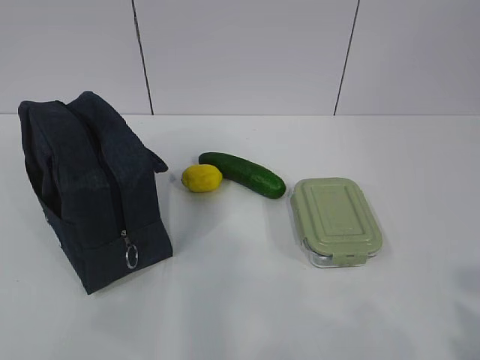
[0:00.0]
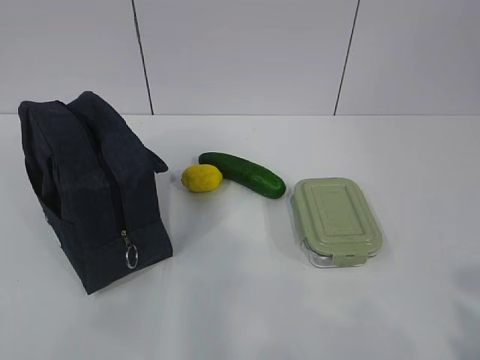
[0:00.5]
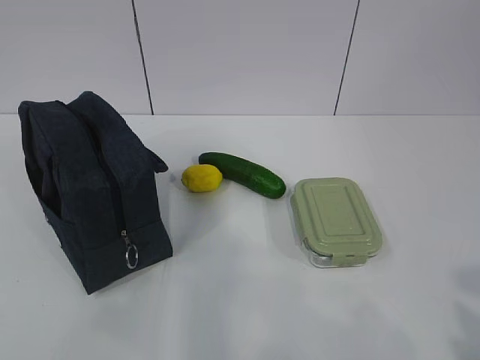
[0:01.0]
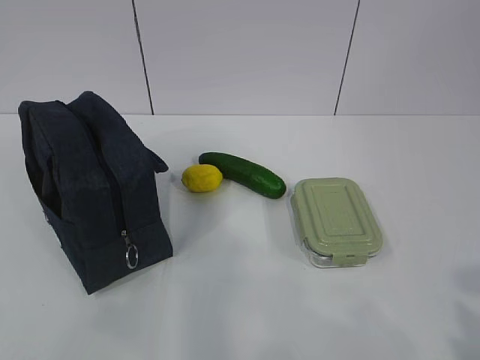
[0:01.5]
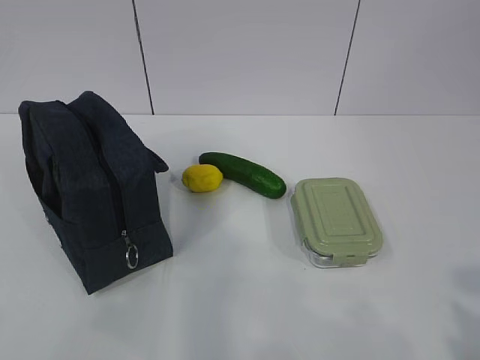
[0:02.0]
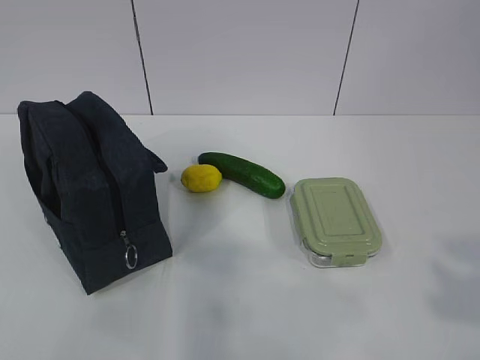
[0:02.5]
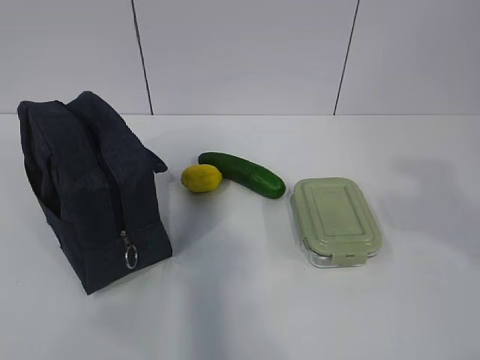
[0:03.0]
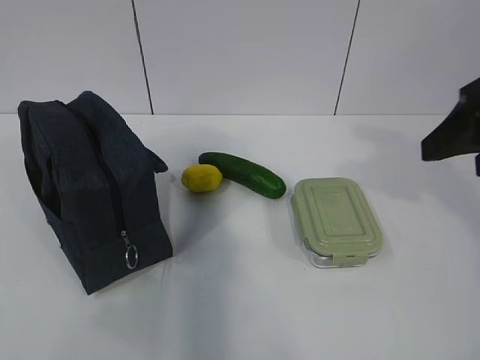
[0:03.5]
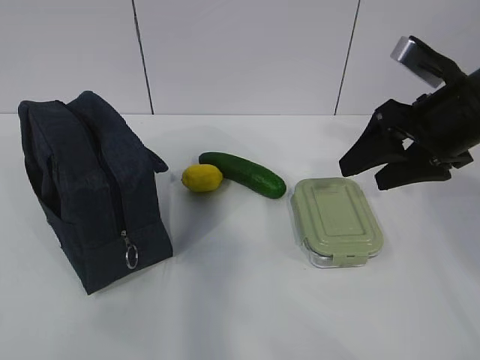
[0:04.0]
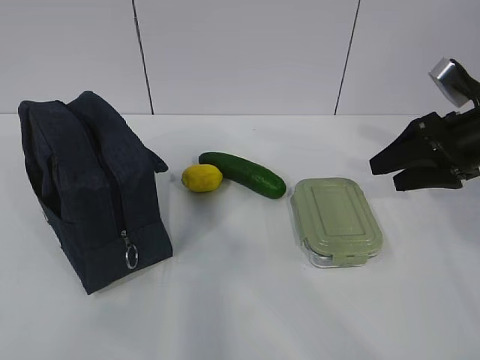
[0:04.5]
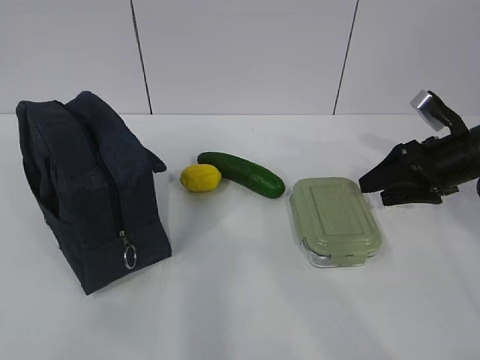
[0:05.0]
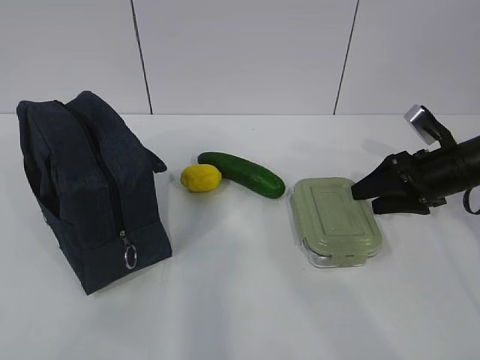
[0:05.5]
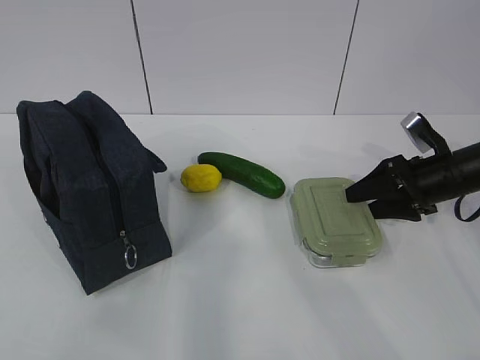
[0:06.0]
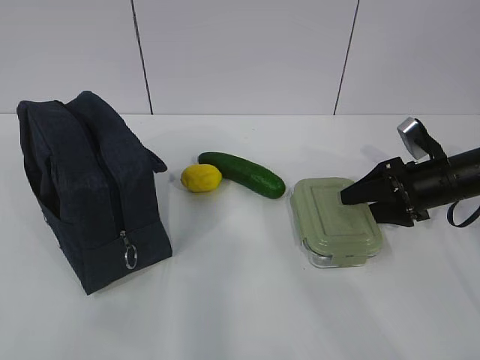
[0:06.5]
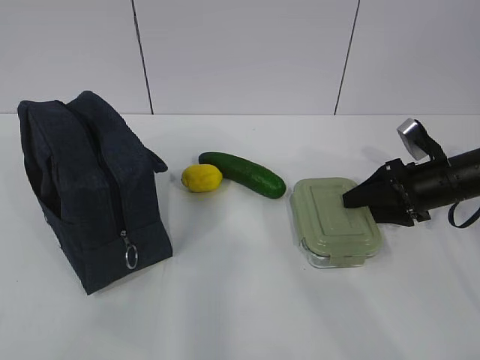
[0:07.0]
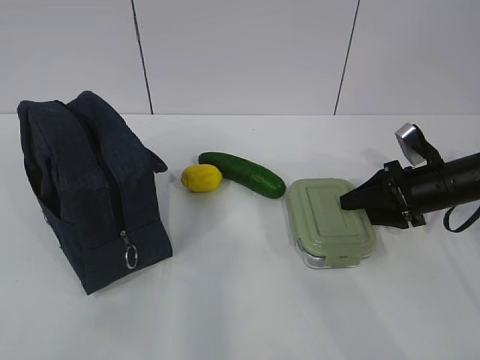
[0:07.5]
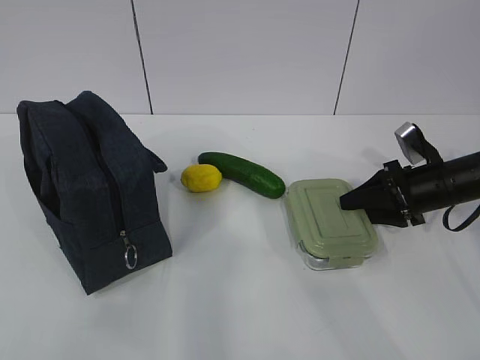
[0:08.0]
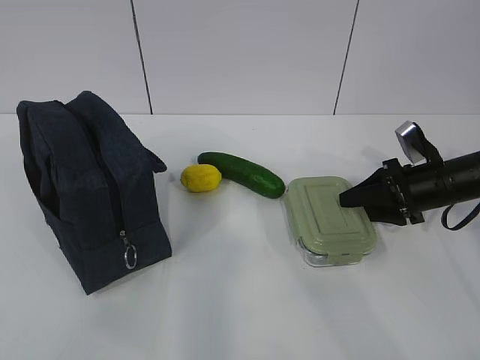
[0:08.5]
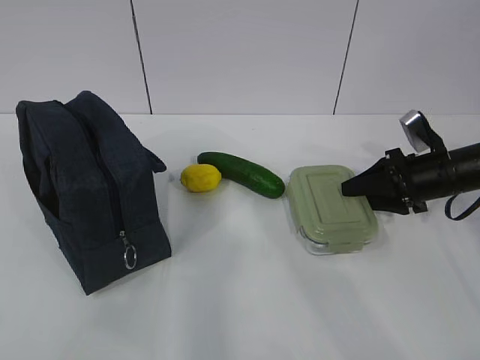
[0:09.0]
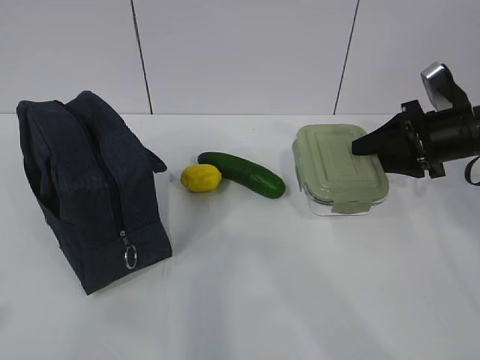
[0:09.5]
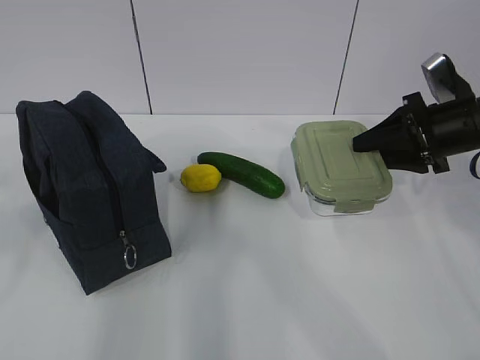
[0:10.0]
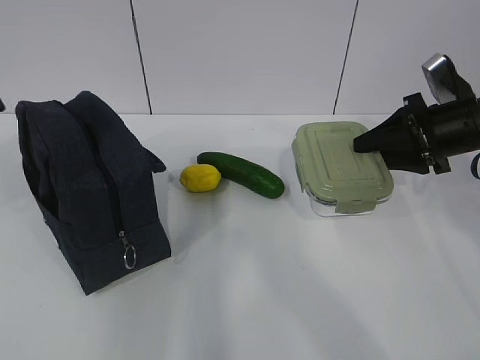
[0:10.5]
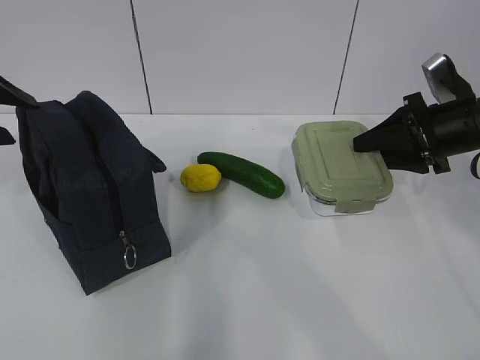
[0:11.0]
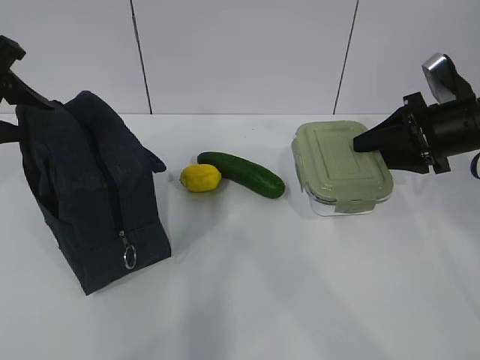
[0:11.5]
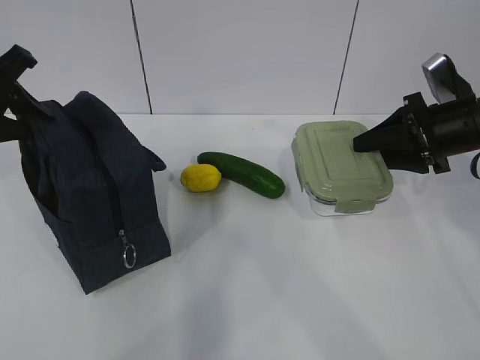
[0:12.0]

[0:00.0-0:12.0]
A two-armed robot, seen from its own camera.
Step, 0:00.0 to 0:07.0: Grab the lunch box with your right hand.
0:02.0 to 0:04.0: The right gripper shifts approximately 35 cm forward.
0:04.0 to 0:06.0: The right gripper shifts roughly 20 cm downward, to the right and forward.
0:06.0 to 0:08.0: The right gripper closes.
0:08.0 to 0:10.0: The right gripper goes approximately 10 cm upward, while the left gripper shifts approximately 10 cm forward.
0:10.0 to 0:12.0: The left gripper heads forward, covering some 25 cm.

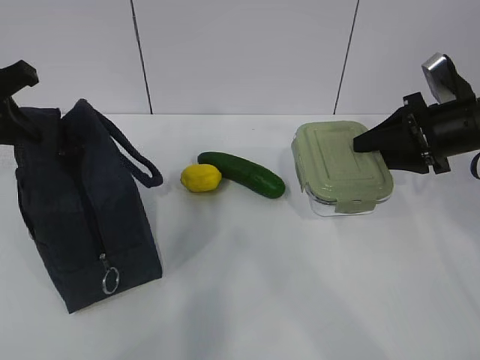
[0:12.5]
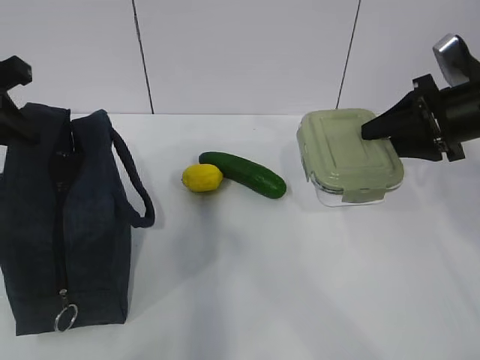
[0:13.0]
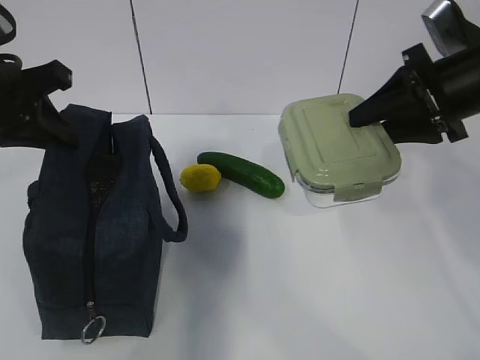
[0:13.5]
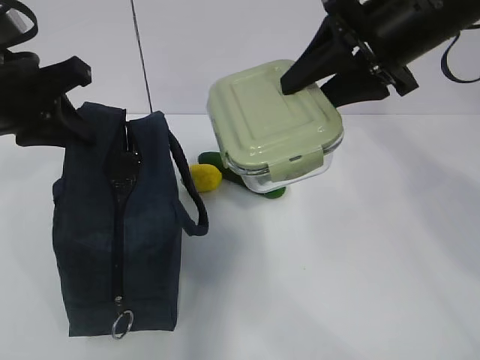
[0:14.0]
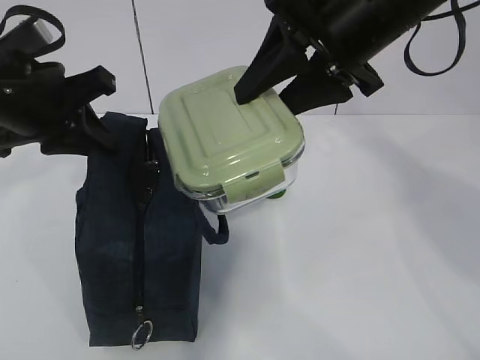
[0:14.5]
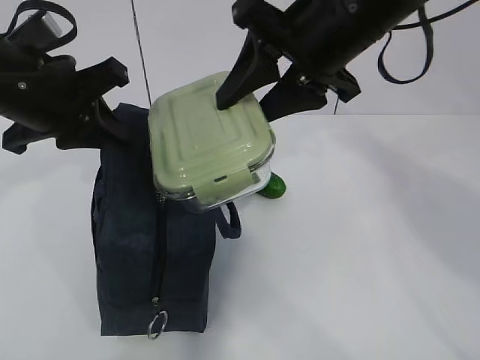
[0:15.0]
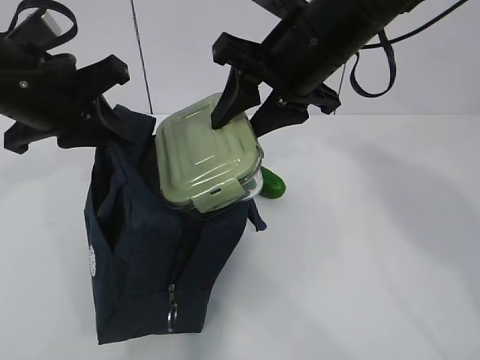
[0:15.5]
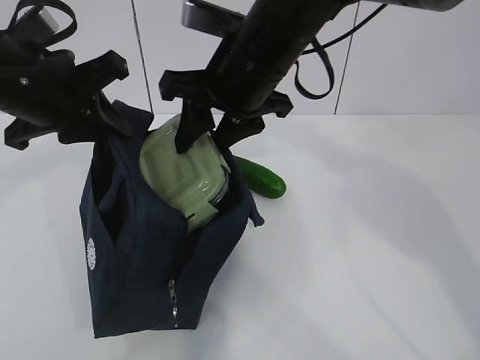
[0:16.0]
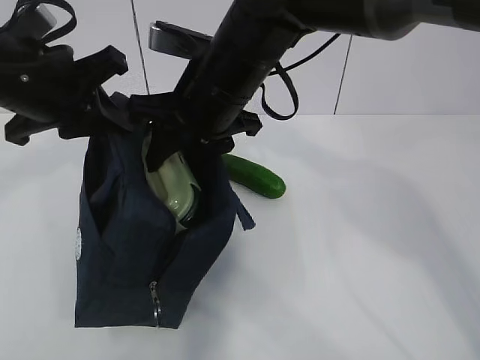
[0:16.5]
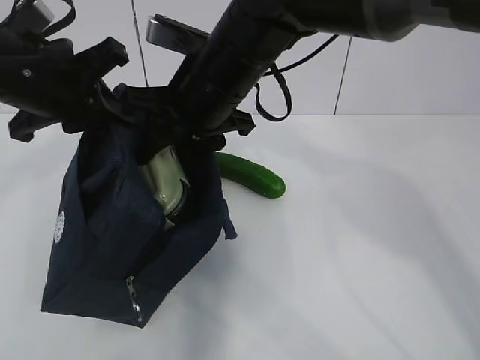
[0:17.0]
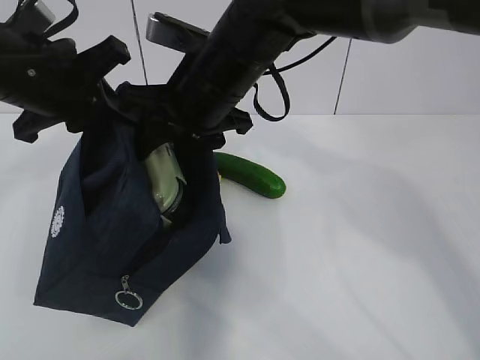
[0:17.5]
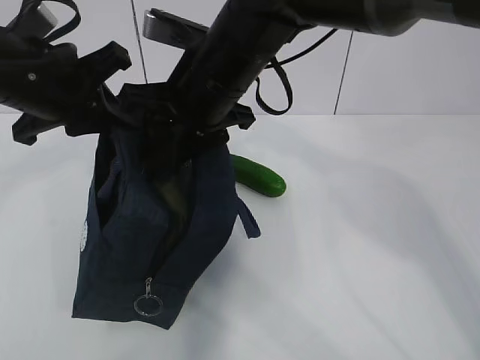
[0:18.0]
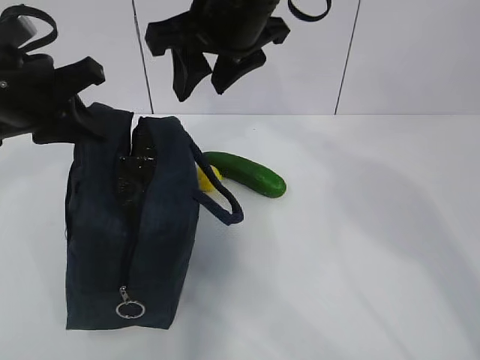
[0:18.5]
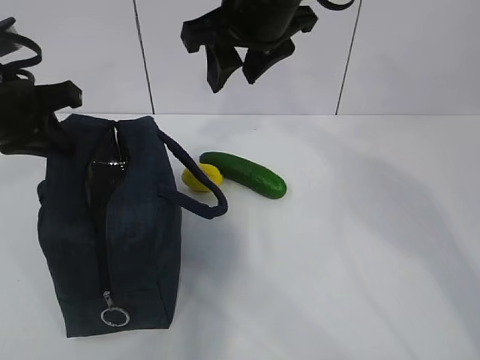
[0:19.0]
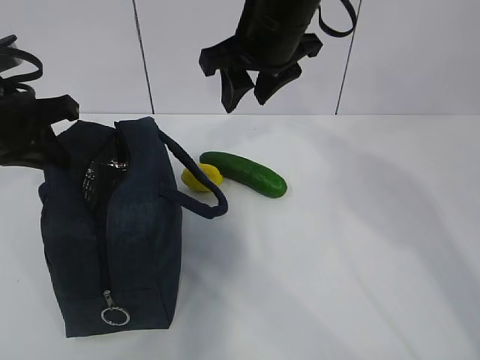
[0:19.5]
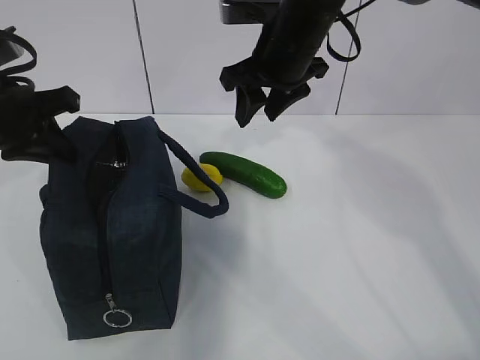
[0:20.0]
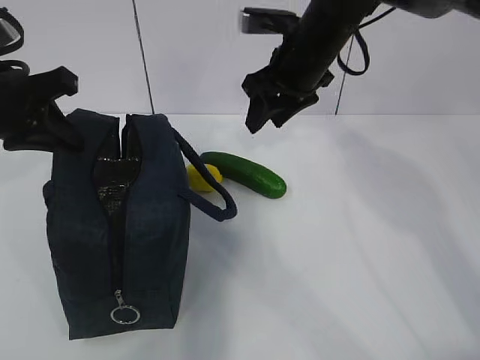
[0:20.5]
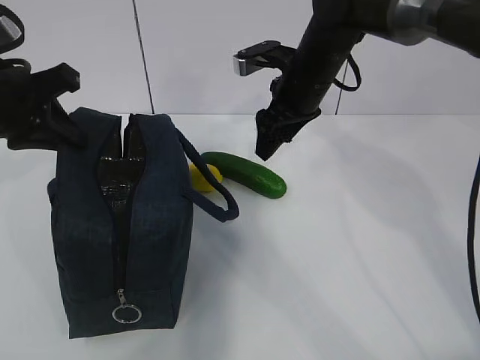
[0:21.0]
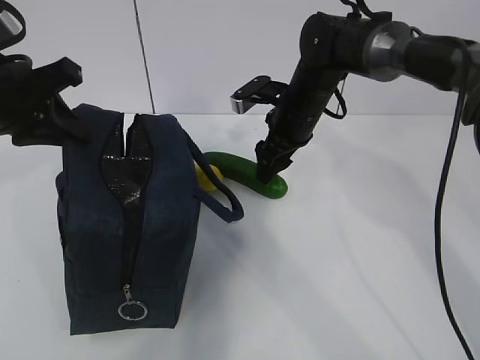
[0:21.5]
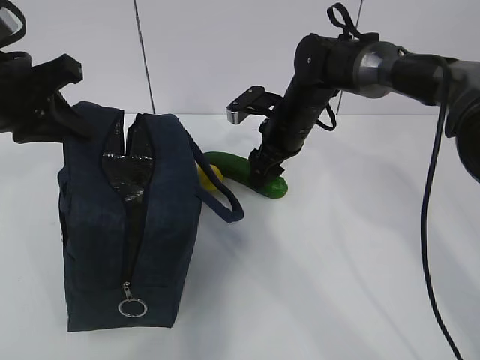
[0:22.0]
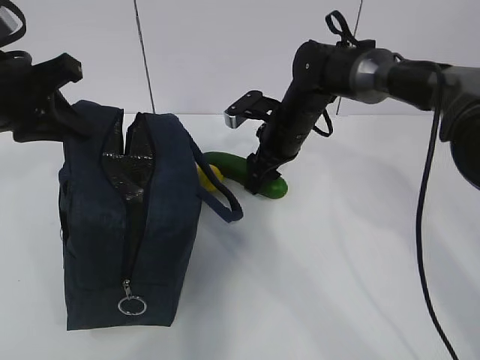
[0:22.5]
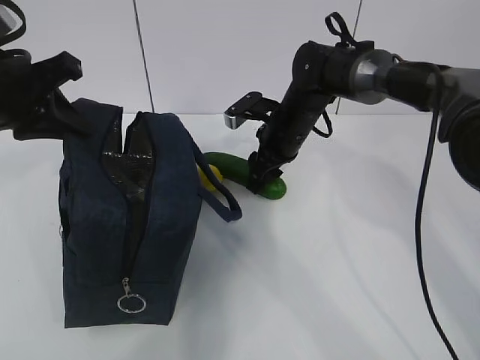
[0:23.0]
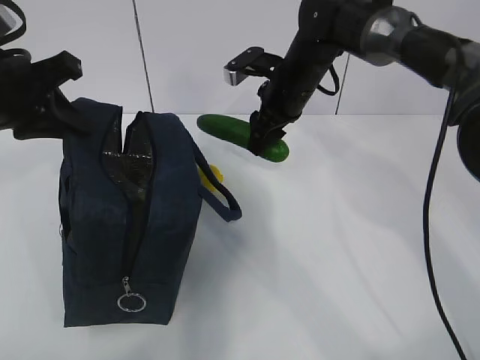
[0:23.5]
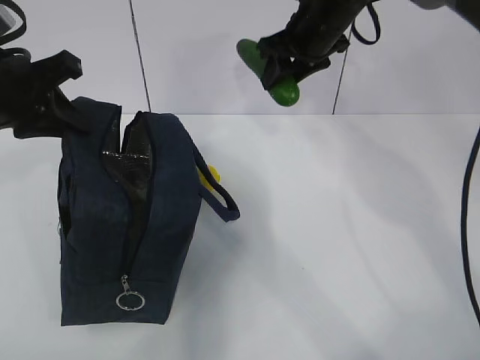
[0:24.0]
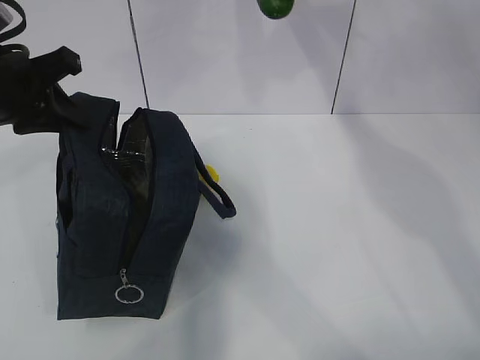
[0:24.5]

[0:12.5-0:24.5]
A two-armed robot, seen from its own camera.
Step, 0:13.0 to 0:14.5: Place it into the bag with your right hand.
Step, 0:15.0 to 0:19.0: Grab the cucumber with your right hand.
Step, 0:19.5 to 0:23.0: Place it into the bag with your right hand.
0:12.5 to 0:14.5: The left gripper travels to the right by some 10 cm. The right gripper heads to the left and upward, covering approximately 25 cm.
0:14.5 to 0:16.5: The right gripper shifts roughly 15 cm to the left and downward.
0:16.5 to 0:18.5: The right gripper heads upward, covering approximately 5 cm.
0:18.5 to 0:20.5: The right gripper heads to the right, forward and downward, covering some 15 cm.
0:20.5 to 0:22.5: The right gripper travels downward by roughly 15 cm.
0:22.5 to 0:24.5: The right gripper heads upward, covering some 25 cm.

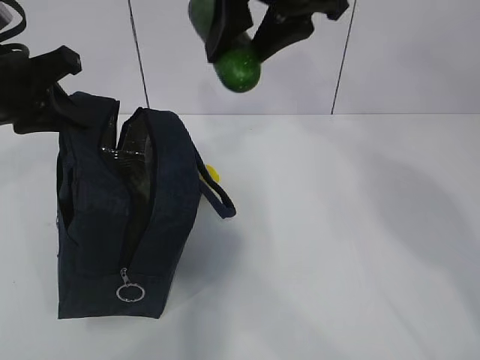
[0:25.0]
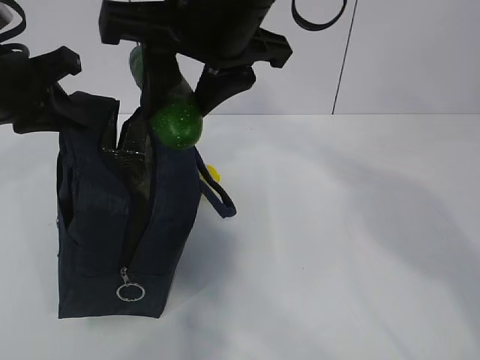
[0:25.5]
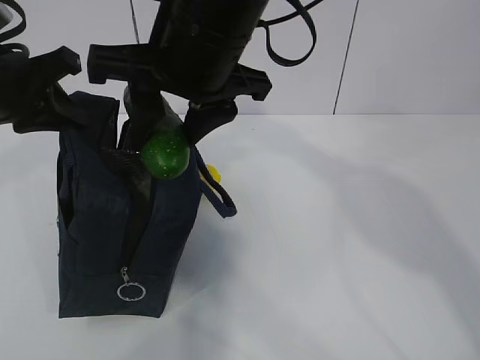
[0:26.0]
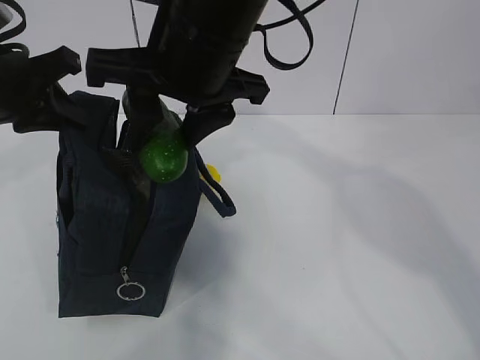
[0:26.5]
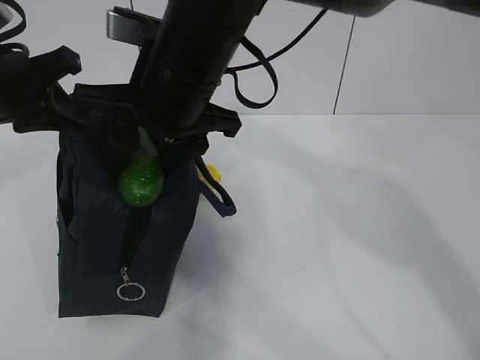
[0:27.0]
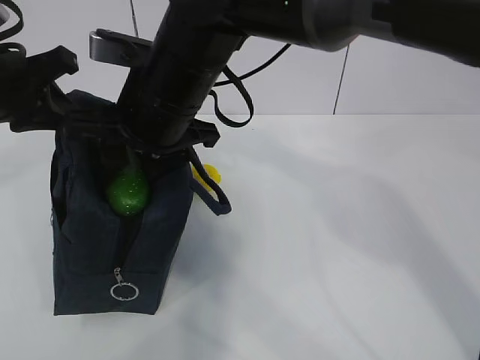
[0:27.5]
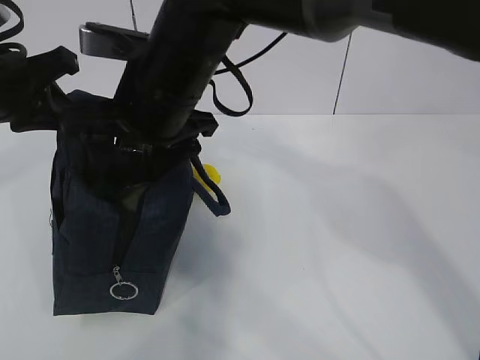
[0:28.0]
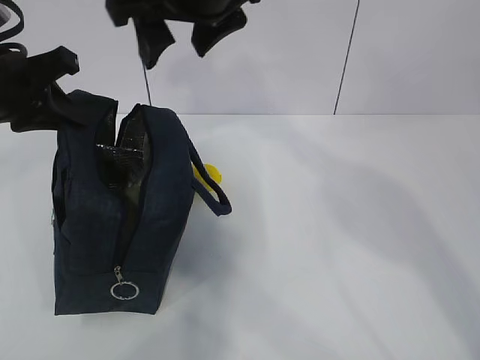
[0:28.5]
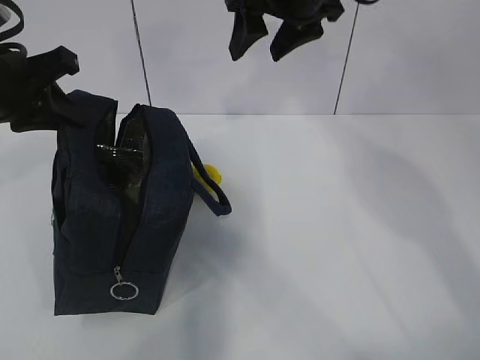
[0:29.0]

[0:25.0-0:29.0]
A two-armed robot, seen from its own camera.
0:25.0 to 0:27.0: The right gripper travels to the left and downward by approximately 15 cm.
0:27.0 to 0:29.0: The right gripper moves to the right and forward, some 15 cm.
